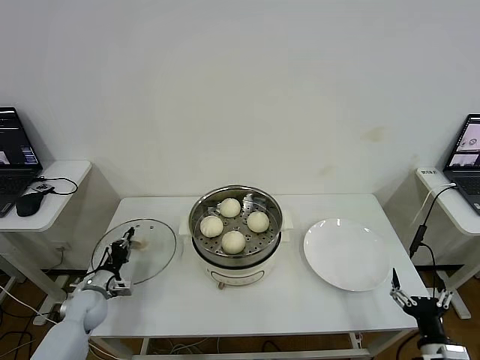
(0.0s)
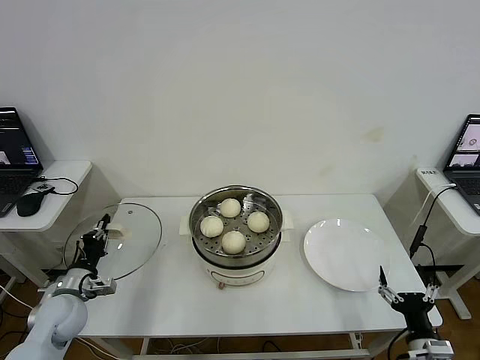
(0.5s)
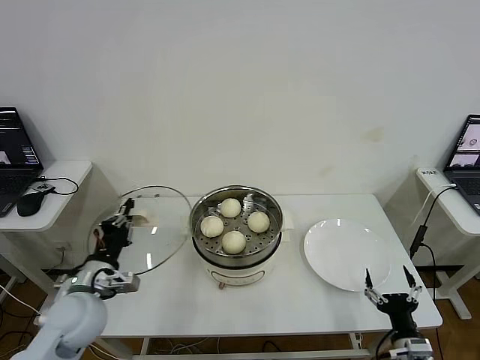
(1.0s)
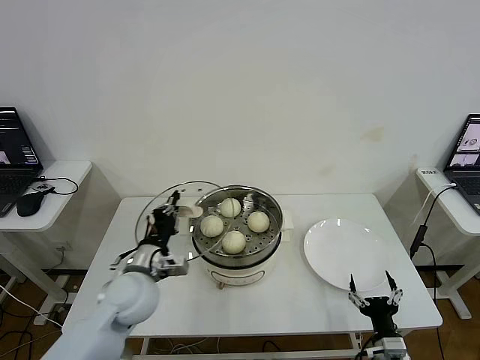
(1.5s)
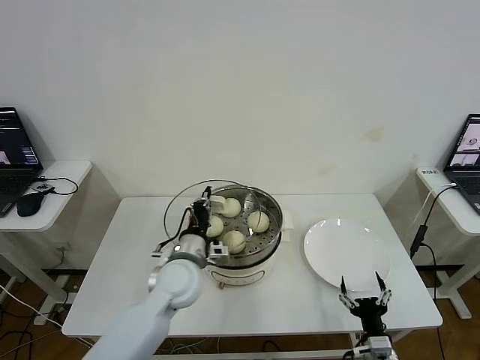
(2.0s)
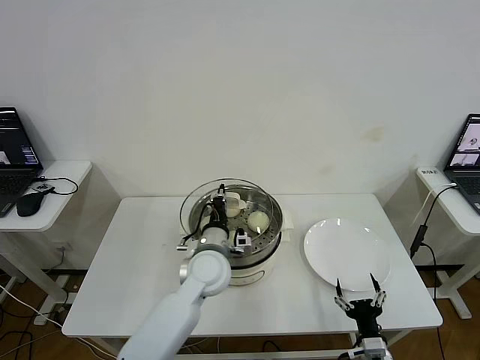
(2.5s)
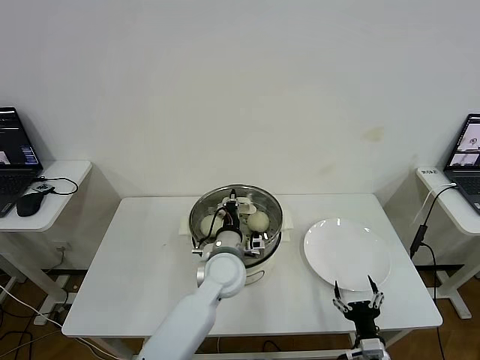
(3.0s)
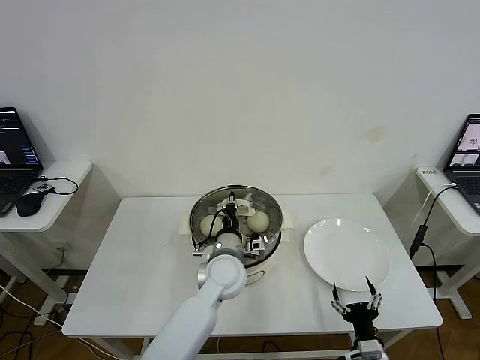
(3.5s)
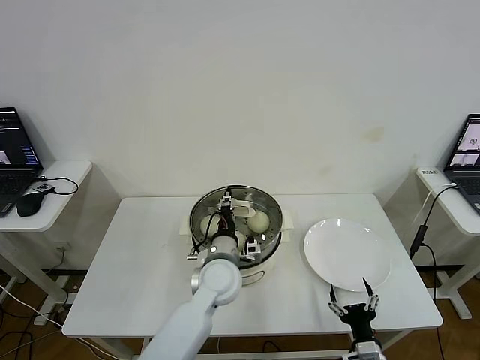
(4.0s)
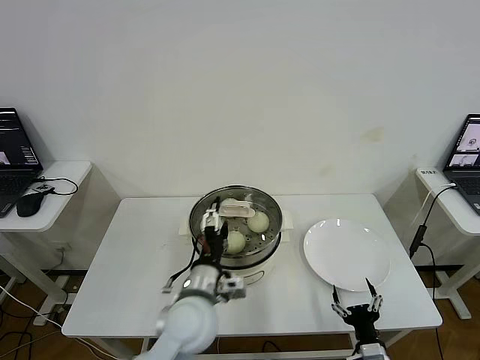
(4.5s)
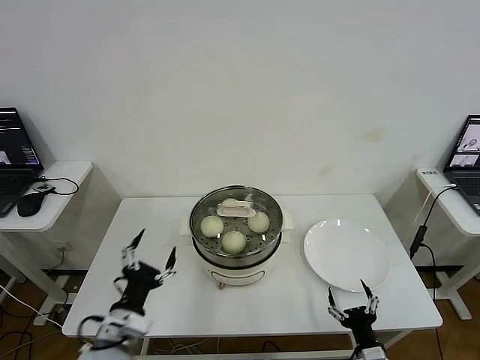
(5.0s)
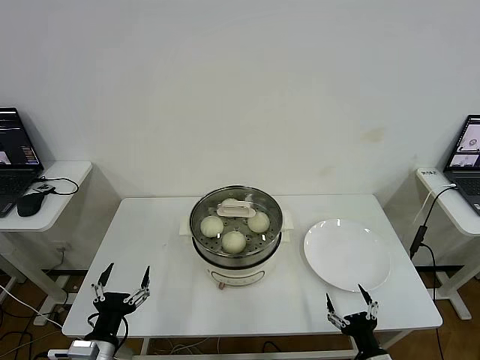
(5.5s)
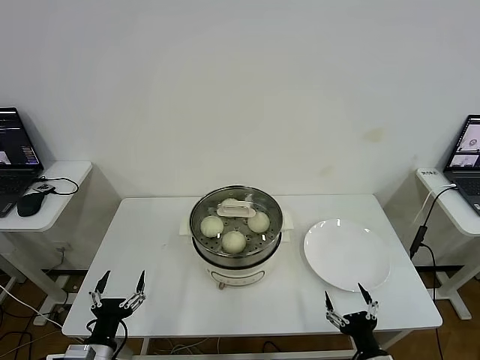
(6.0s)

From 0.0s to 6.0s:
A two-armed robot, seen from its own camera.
Step, from 0.5s to 4.0s: Place the pot lid on the steamer with left gripper.
From 0.0s to 2.0s: The left gripper travels to the right and upward by some 35 cm; the right gripper travels to the left by approximately 10 cm.
From 2.0s to 4.0s: The left gripper shifts about 10 cm to the right, and opens its fingers.
From 4.0s to 6.0s: The left gripper is displaced to the left and backward by roughly 35 cm, and opens up.
